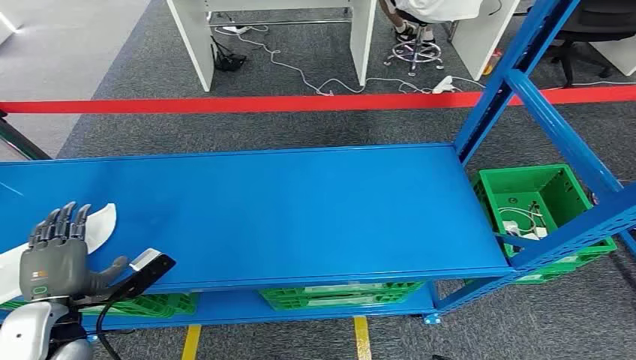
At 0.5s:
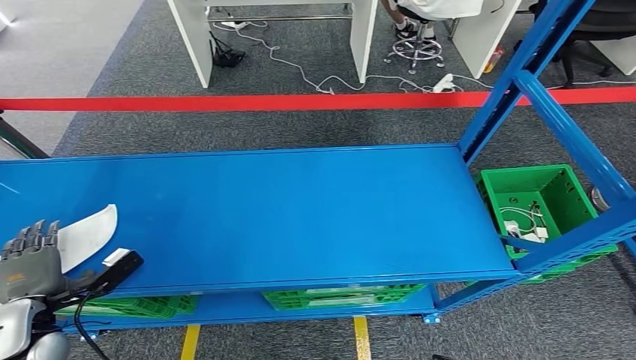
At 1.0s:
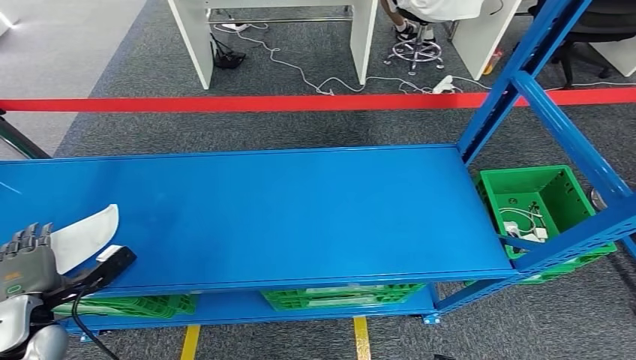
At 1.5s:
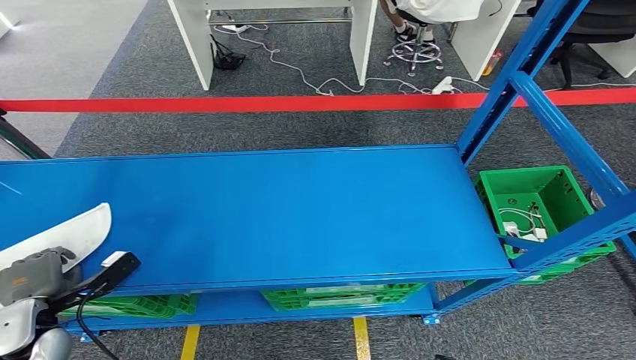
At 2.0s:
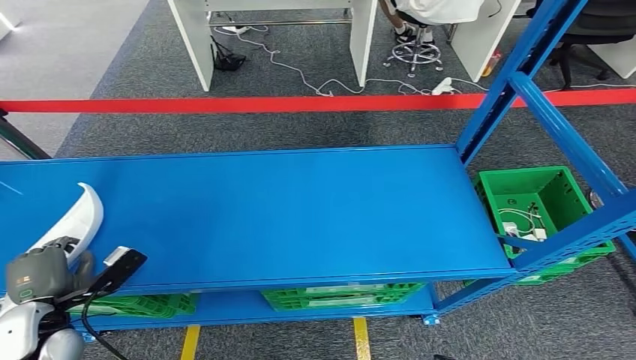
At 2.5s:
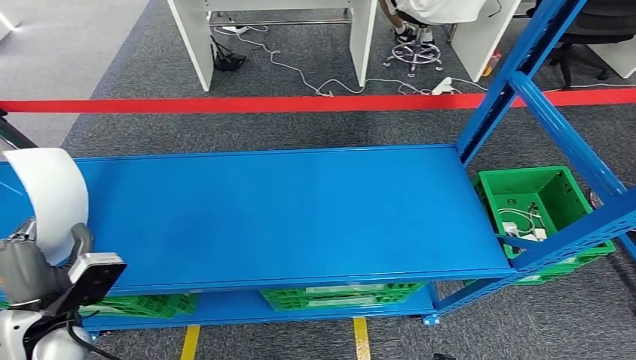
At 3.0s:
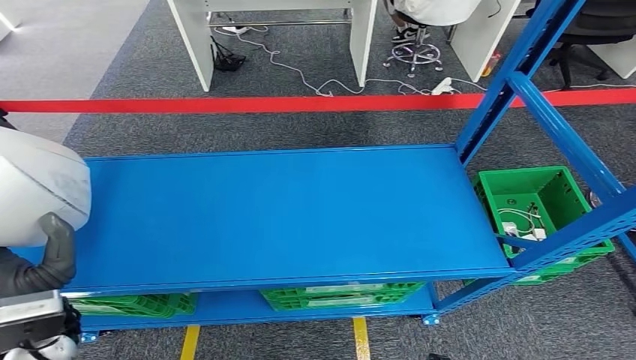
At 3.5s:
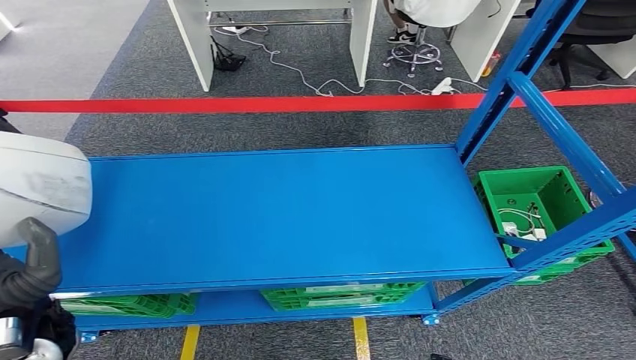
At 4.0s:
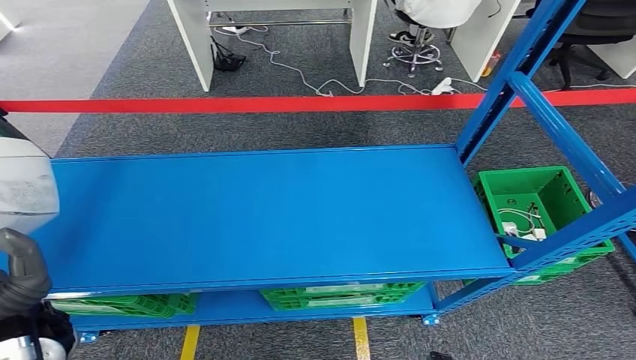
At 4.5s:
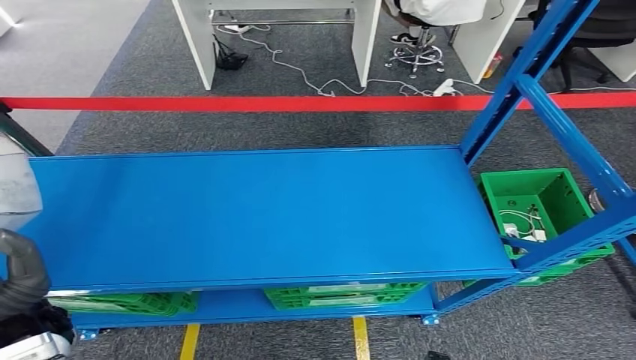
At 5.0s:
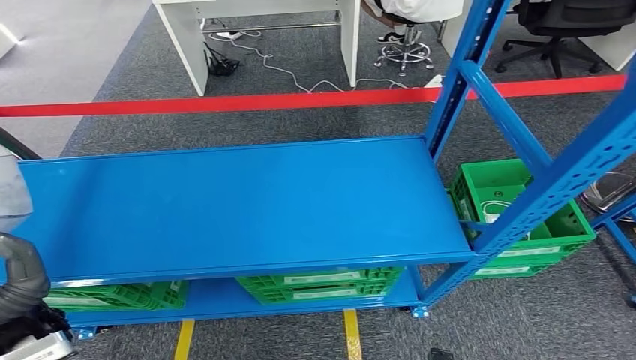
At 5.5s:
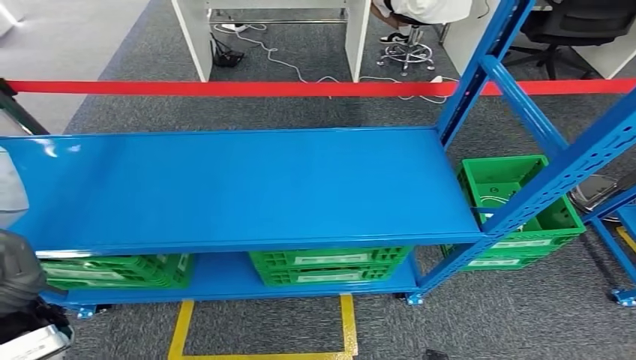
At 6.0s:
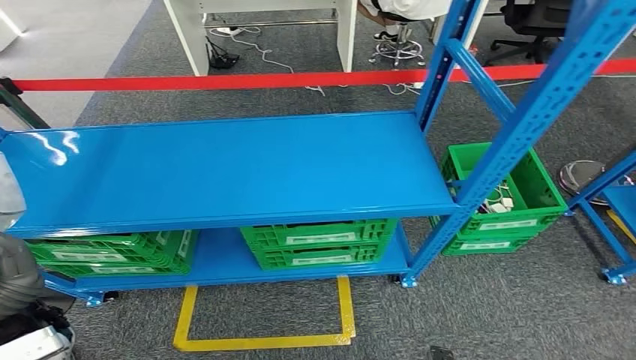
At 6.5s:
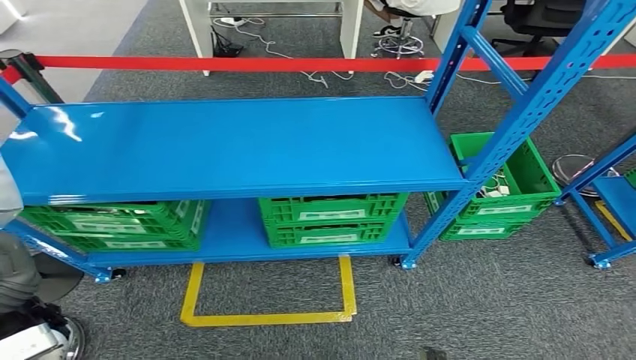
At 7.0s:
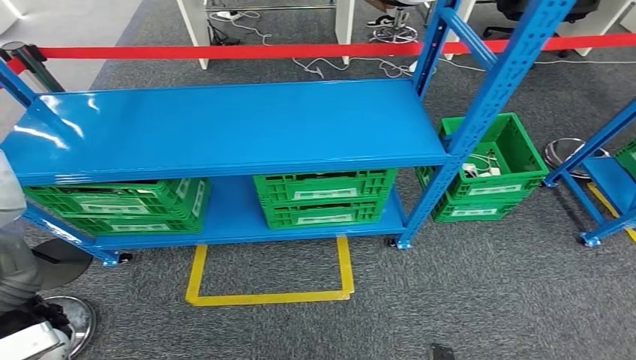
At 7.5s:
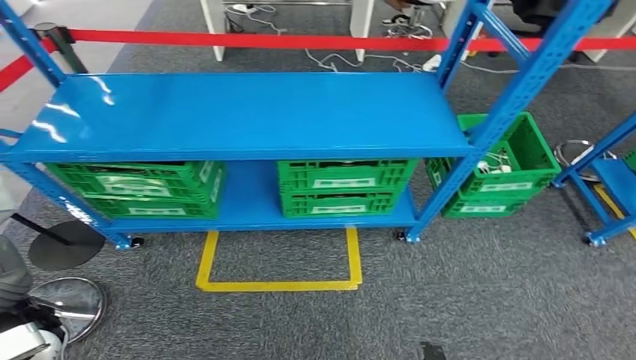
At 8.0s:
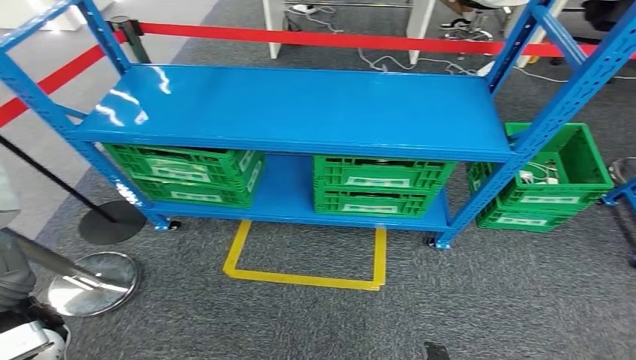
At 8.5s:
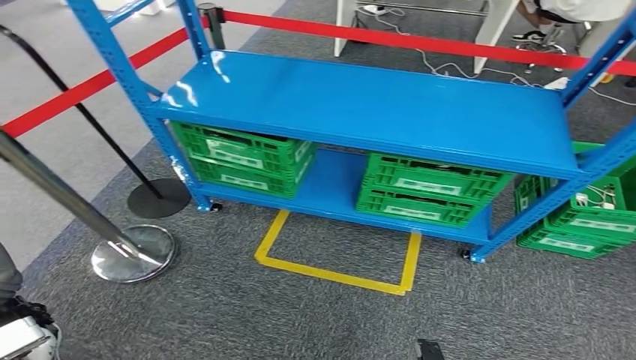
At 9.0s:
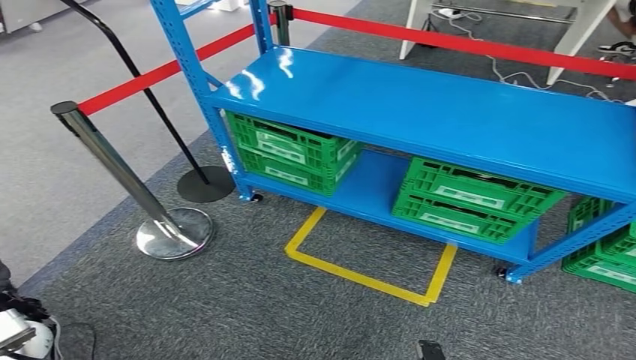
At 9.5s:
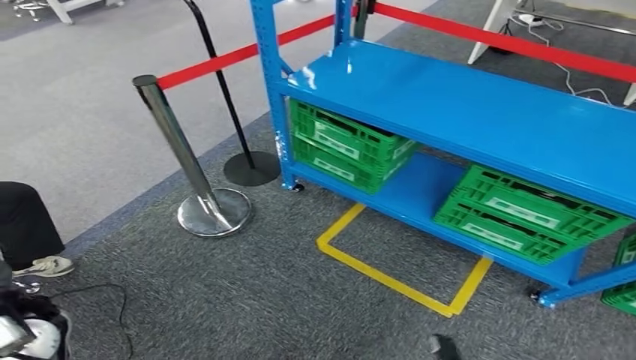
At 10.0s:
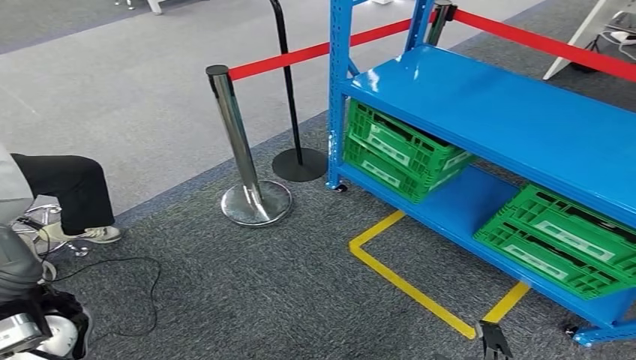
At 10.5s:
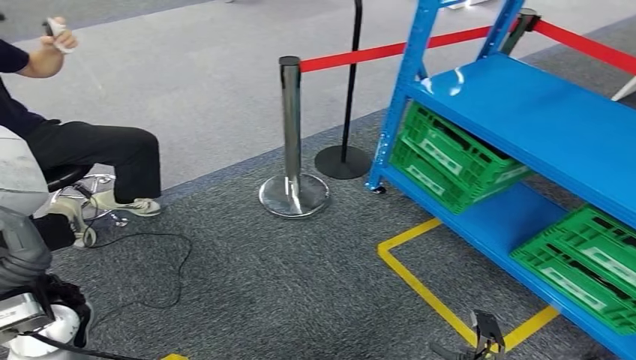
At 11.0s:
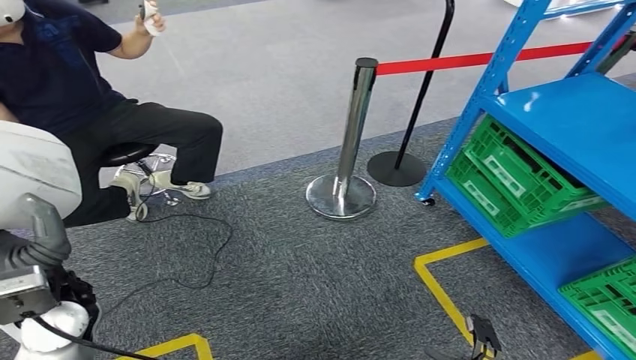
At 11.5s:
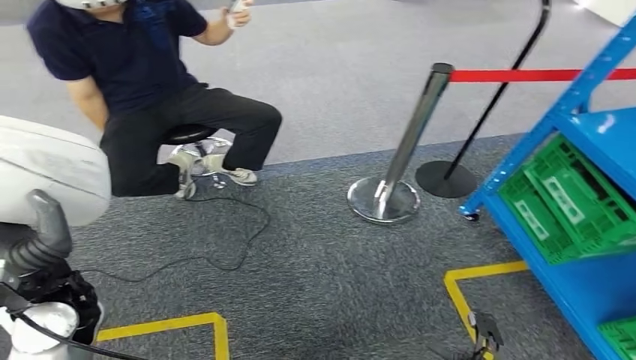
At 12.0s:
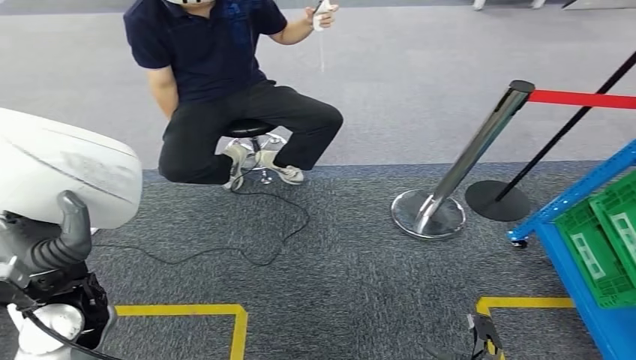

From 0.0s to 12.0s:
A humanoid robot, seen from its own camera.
Step, from 0.0s to 5.5s: Pick up the small component from the shelf.
From 2.0s to 4.0s: The left hand goes some 15 cm upward and to the right.

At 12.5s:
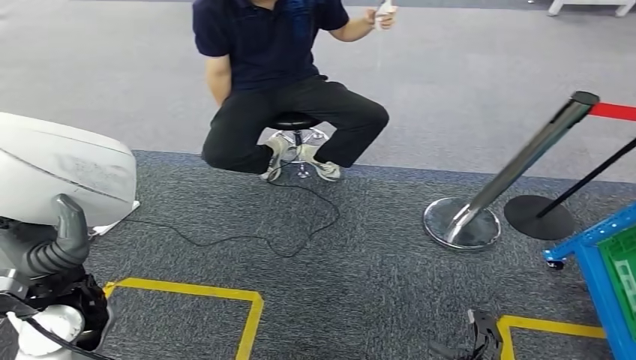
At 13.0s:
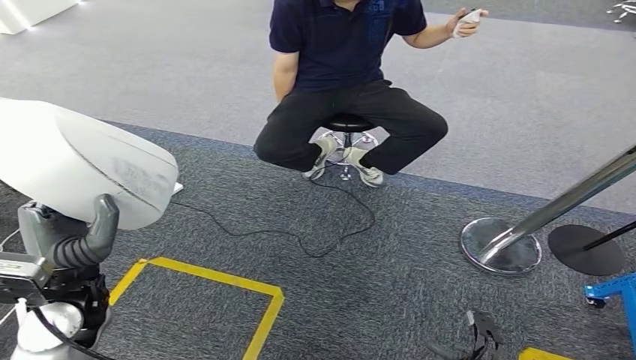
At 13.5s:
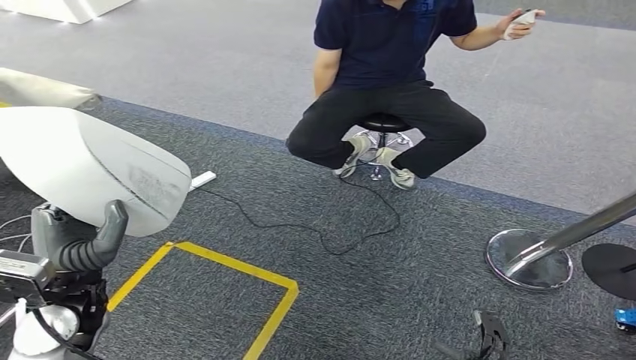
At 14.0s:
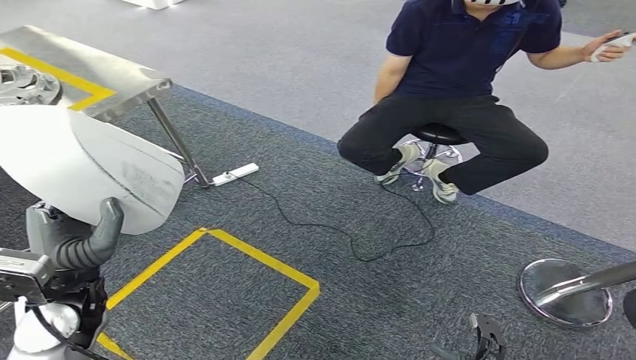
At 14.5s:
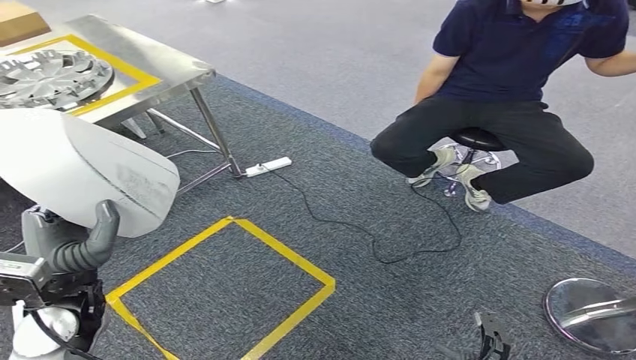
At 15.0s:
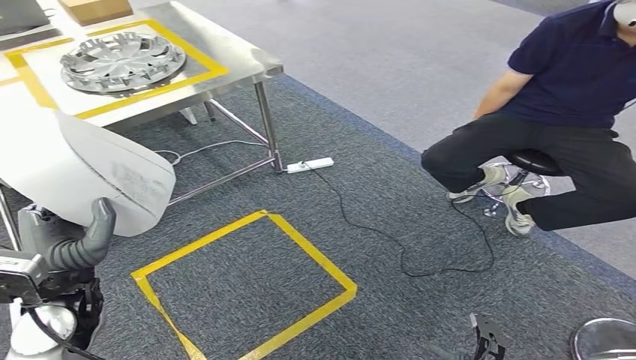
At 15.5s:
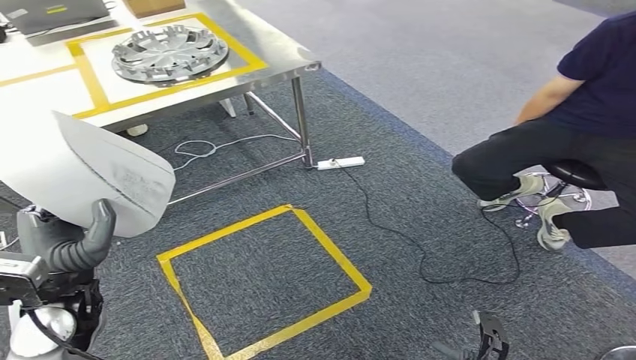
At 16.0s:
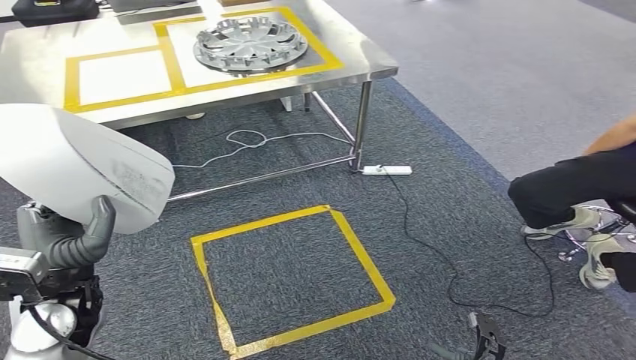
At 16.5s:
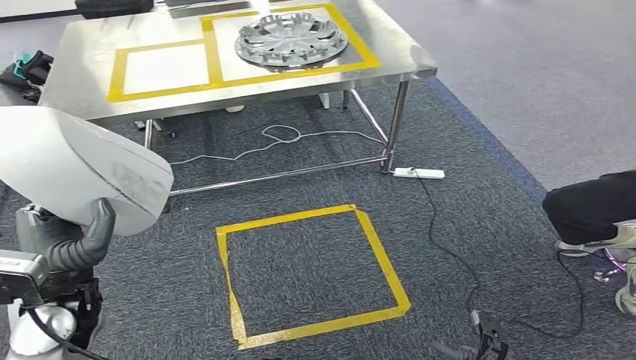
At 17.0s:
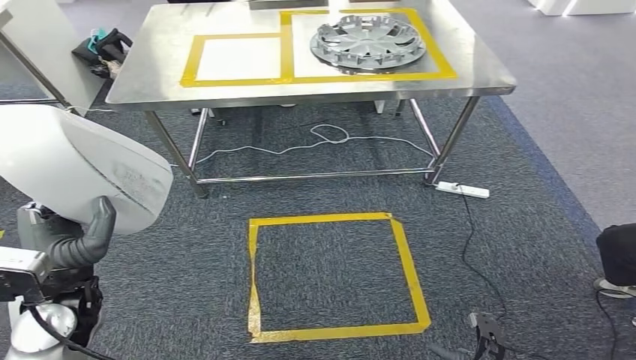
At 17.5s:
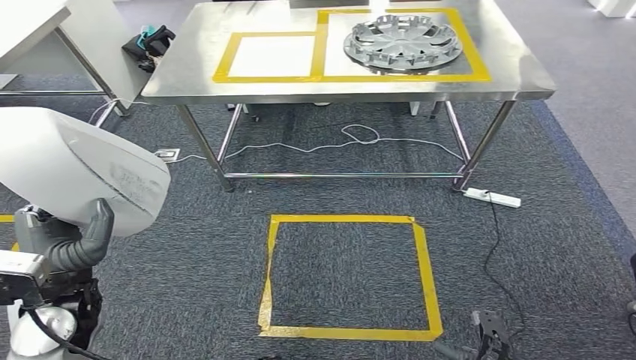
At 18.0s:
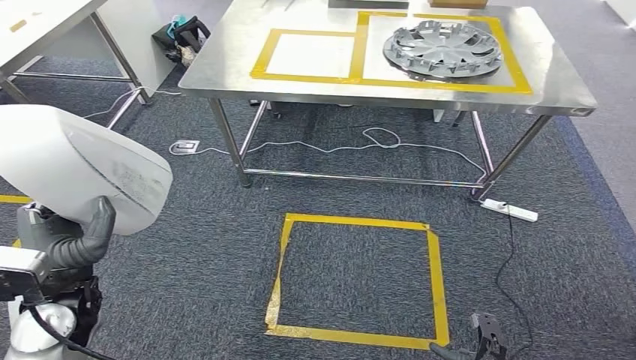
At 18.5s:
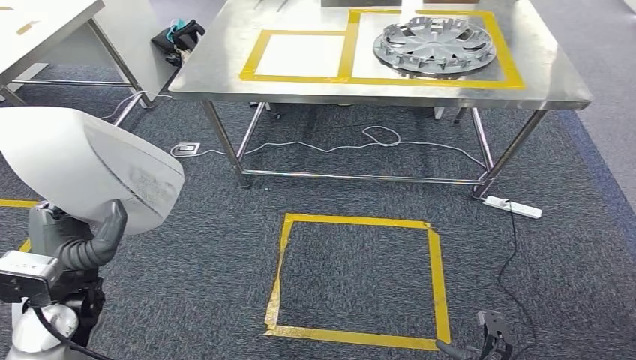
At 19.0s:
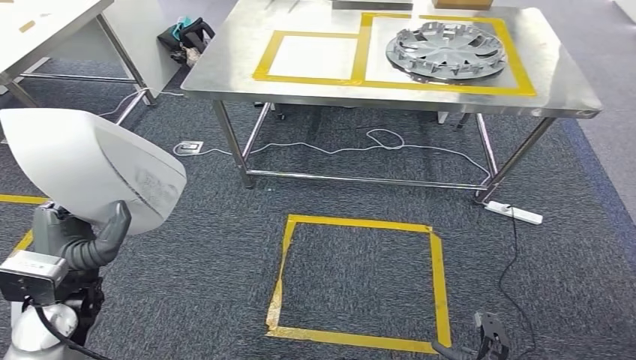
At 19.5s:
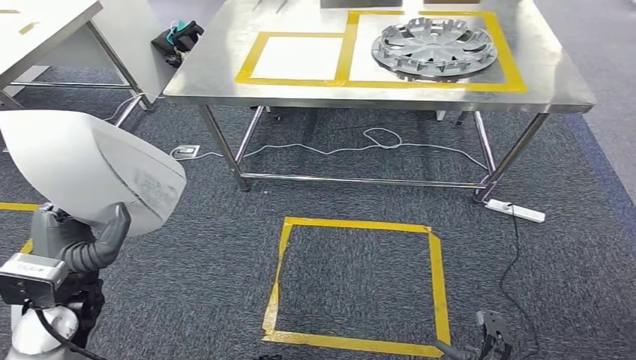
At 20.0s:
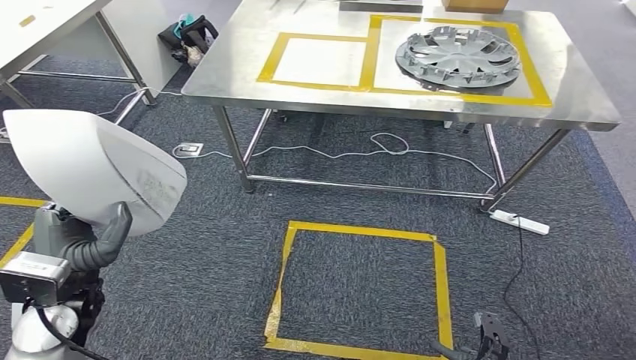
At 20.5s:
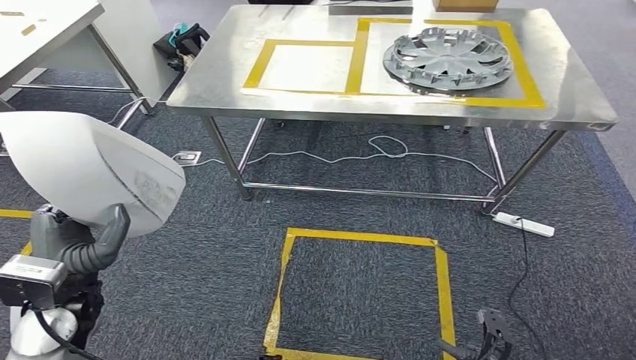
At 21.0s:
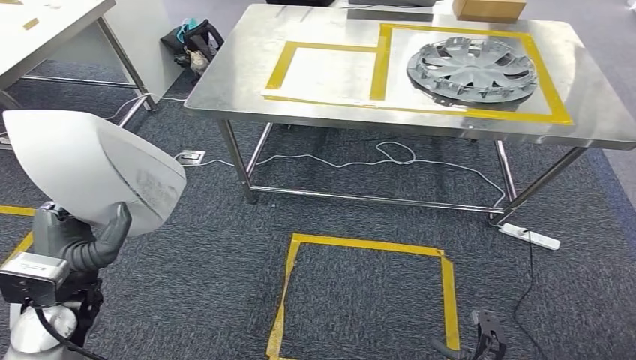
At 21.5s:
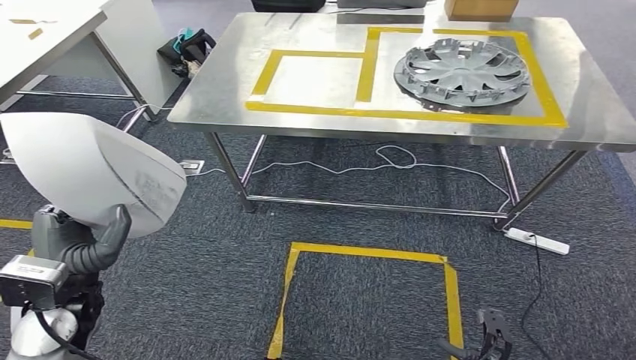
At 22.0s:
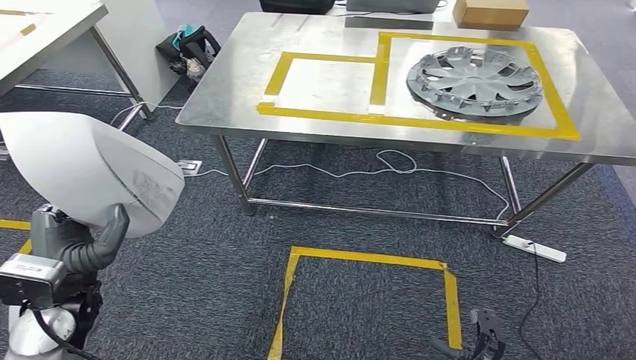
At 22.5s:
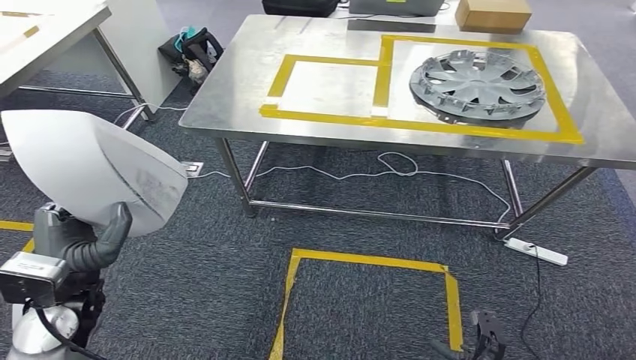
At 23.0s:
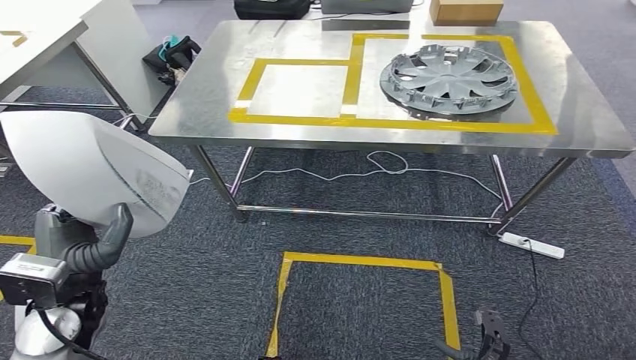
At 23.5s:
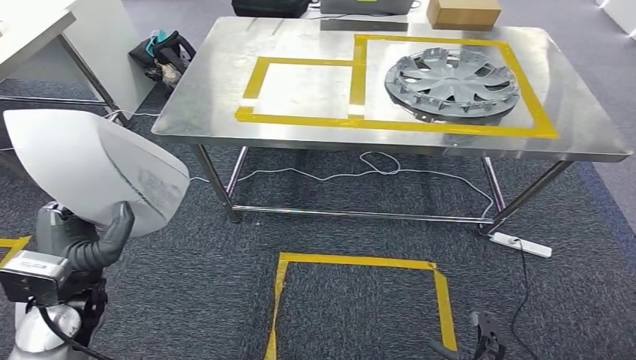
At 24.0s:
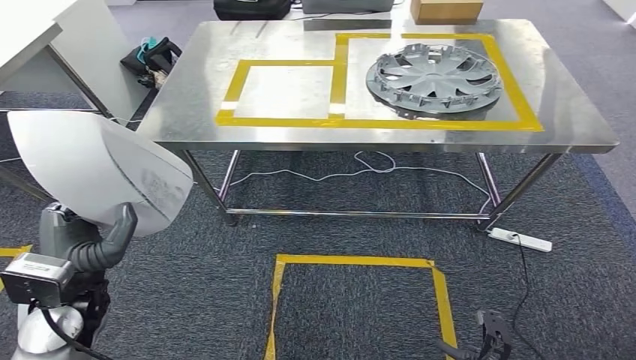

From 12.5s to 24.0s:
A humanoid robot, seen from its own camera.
Step, from 12.5s to 22.5s: Move the small component to the workbench.
